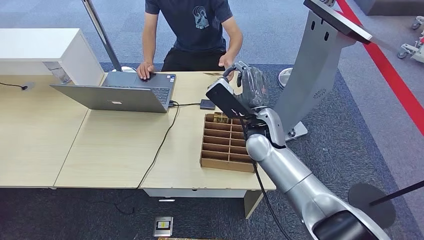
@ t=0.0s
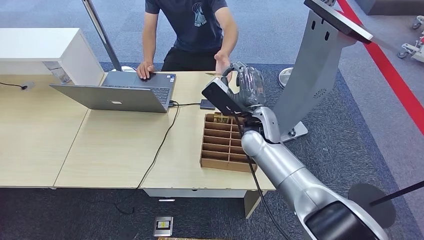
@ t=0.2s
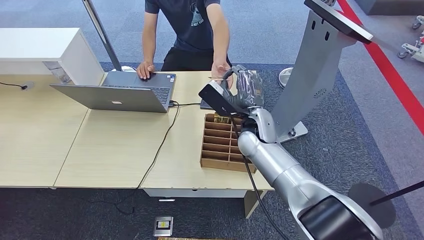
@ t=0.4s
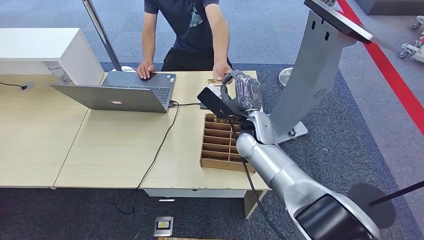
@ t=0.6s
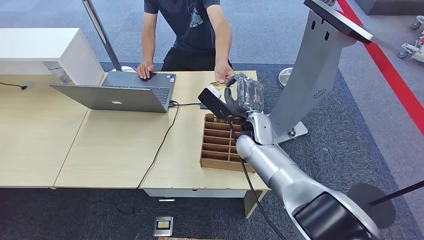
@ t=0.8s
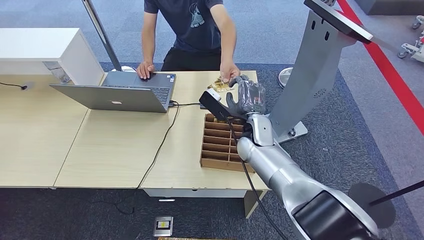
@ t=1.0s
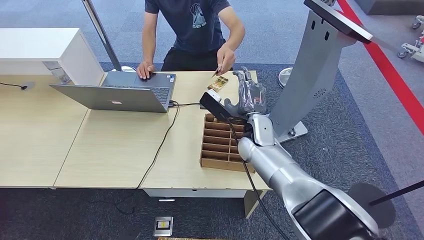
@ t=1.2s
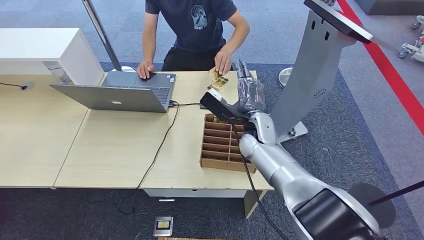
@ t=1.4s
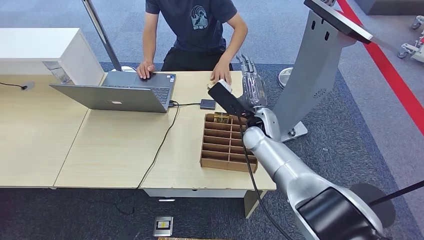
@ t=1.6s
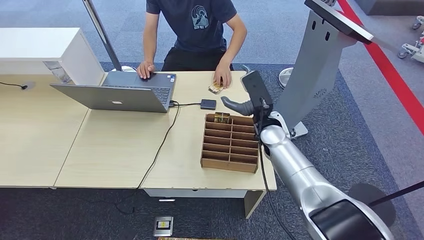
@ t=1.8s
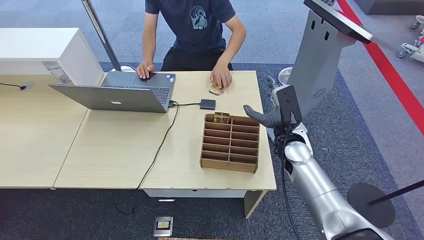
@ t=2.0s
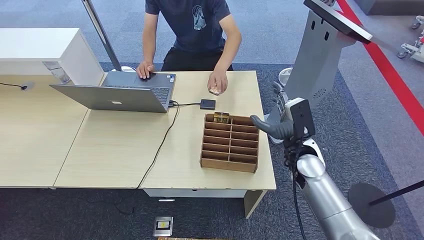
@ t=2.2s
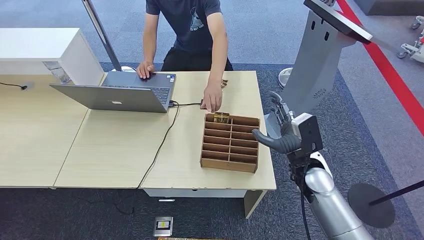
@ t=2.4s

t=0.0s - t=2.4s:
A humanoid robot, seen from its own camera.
Task of the whole recording: Pick up the card and hand it over to the target person.
Step, t=0.0s - t=2.4s: Hand the key card to the target.
t=1.2s - t=2.4s: The right hand shifts about 20 cm to the right, backward and downward.
